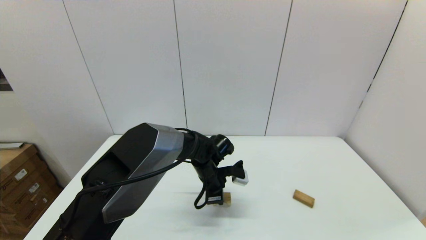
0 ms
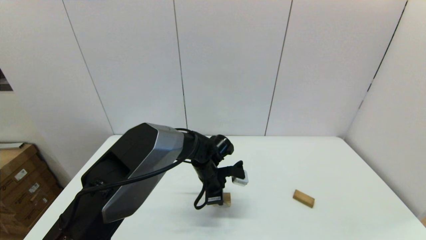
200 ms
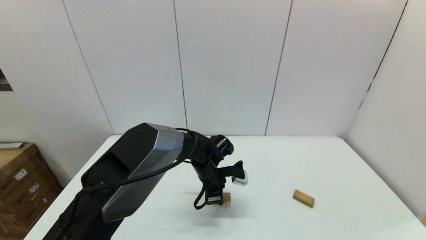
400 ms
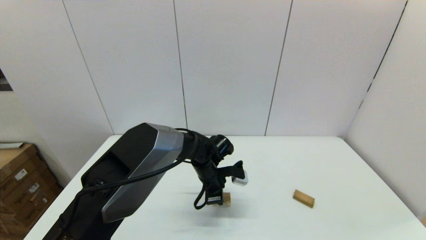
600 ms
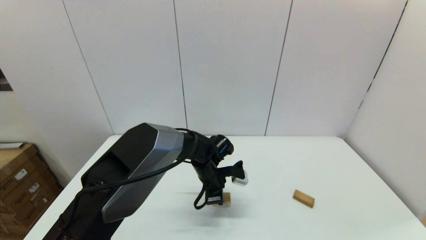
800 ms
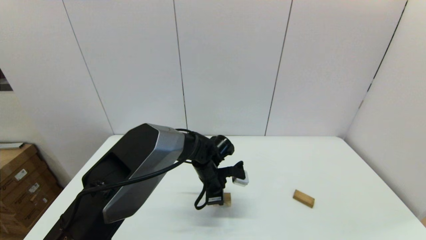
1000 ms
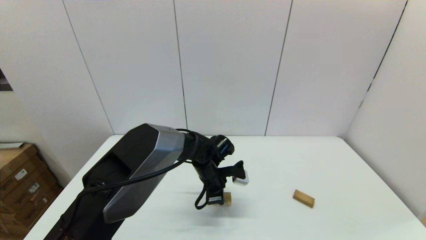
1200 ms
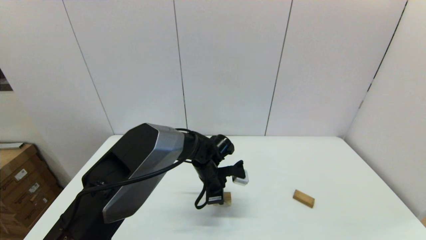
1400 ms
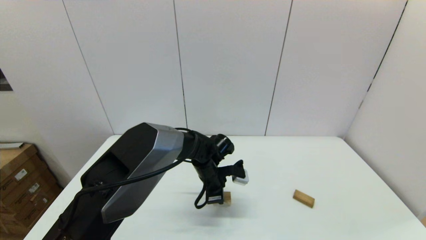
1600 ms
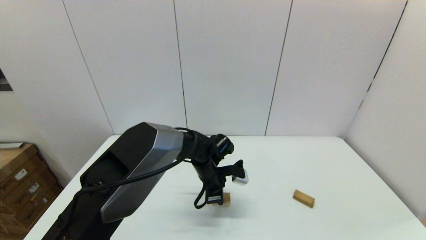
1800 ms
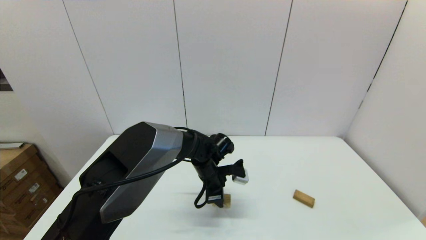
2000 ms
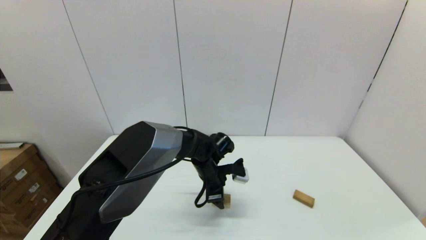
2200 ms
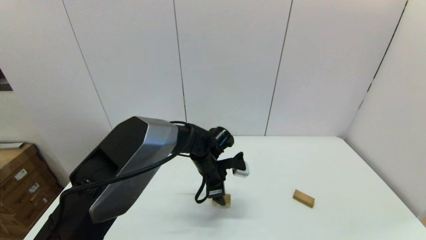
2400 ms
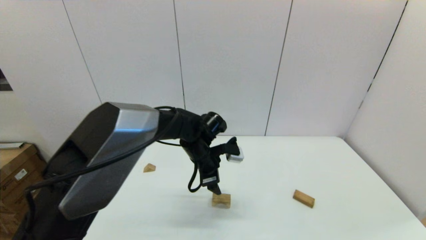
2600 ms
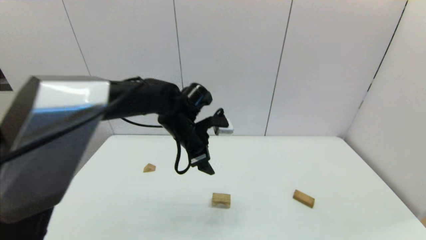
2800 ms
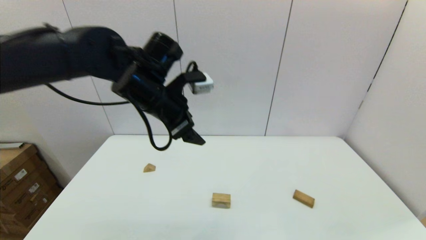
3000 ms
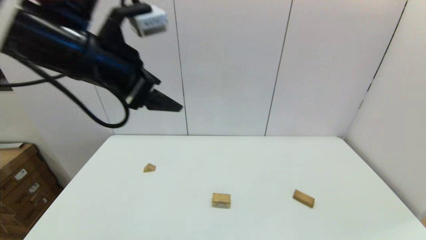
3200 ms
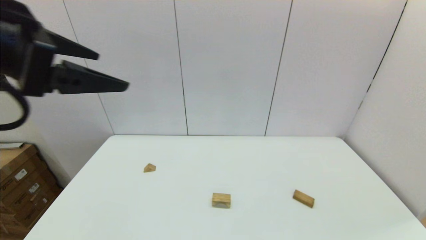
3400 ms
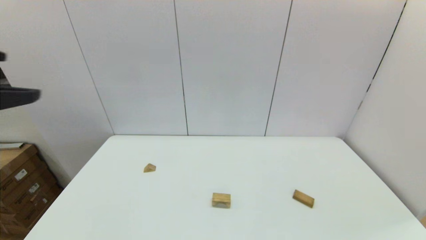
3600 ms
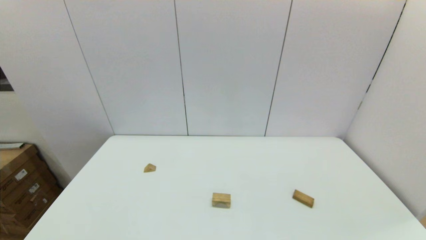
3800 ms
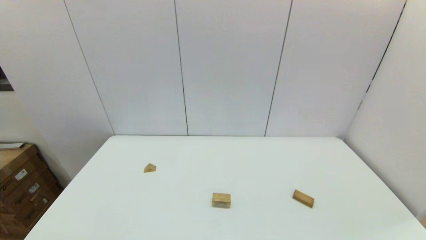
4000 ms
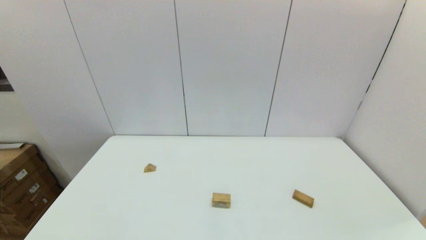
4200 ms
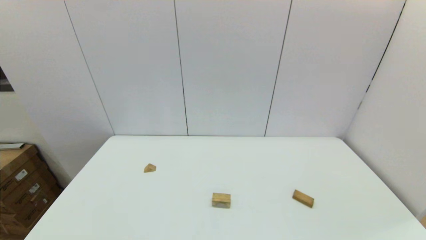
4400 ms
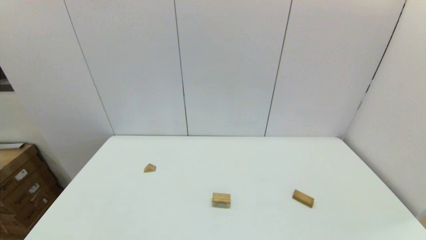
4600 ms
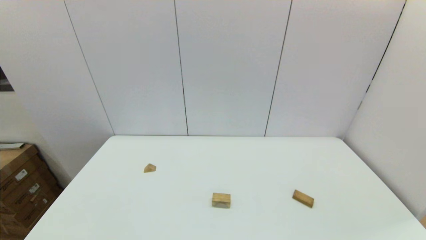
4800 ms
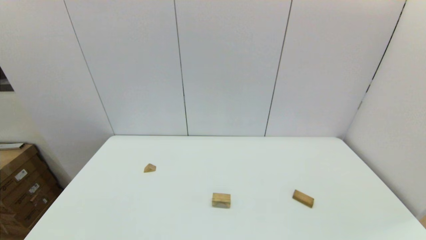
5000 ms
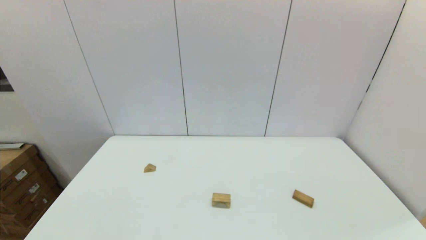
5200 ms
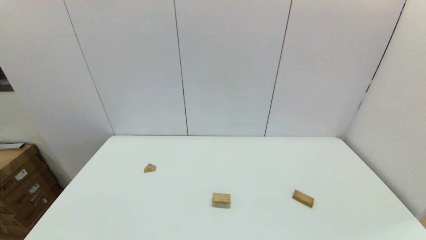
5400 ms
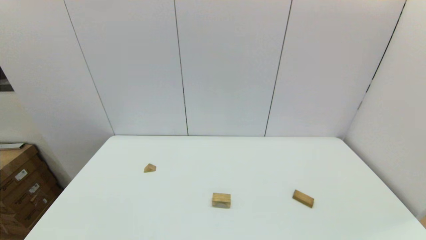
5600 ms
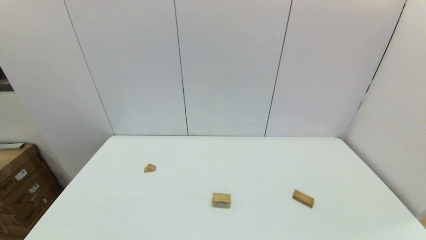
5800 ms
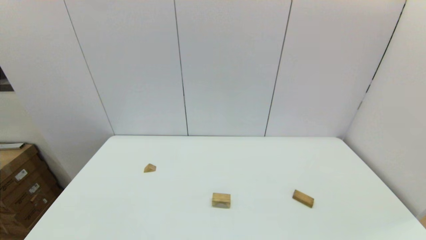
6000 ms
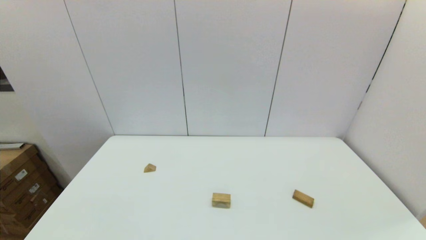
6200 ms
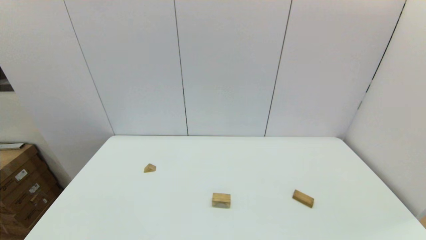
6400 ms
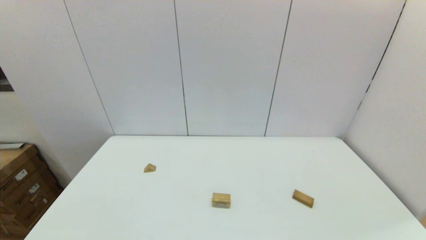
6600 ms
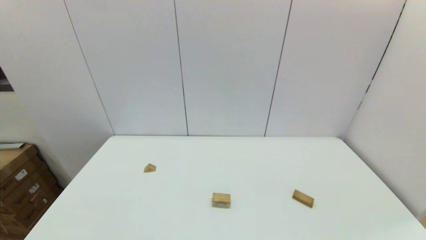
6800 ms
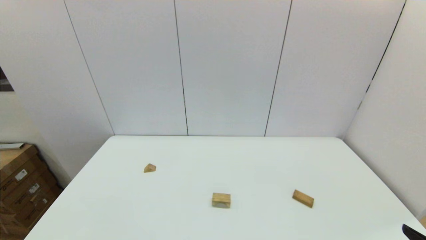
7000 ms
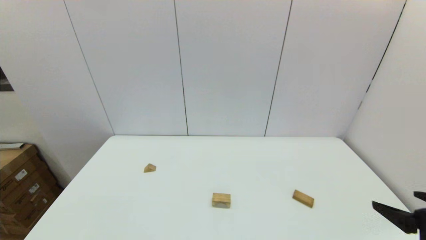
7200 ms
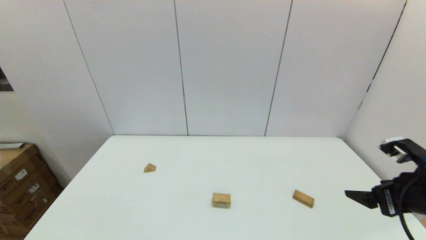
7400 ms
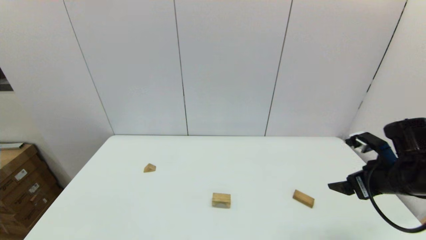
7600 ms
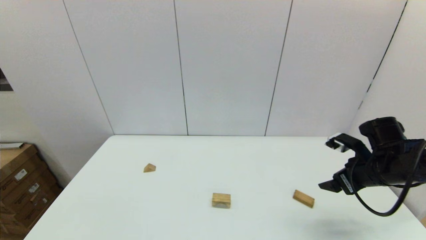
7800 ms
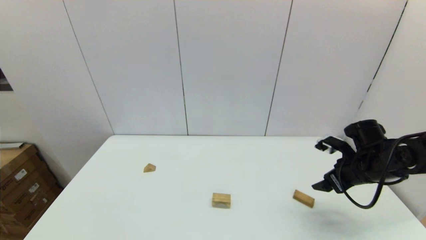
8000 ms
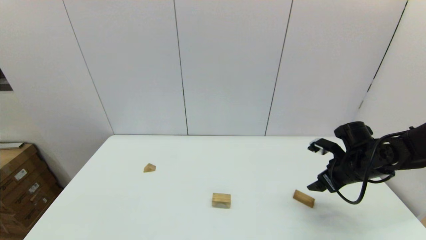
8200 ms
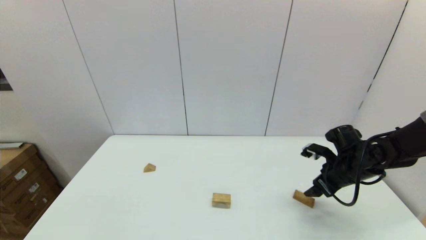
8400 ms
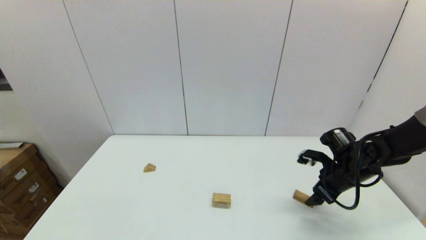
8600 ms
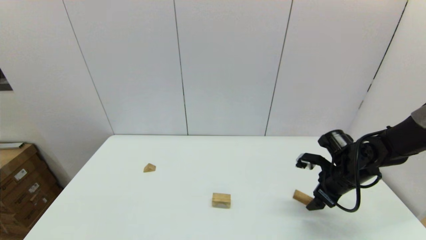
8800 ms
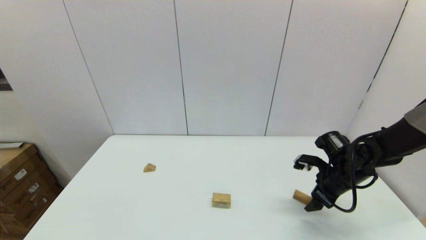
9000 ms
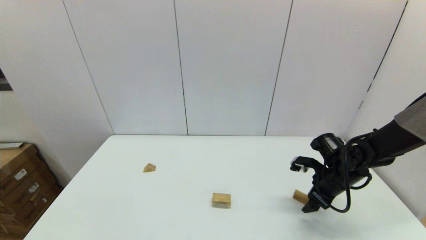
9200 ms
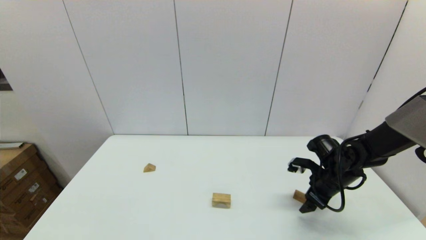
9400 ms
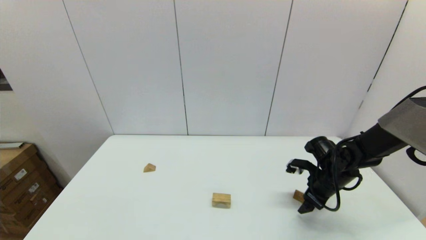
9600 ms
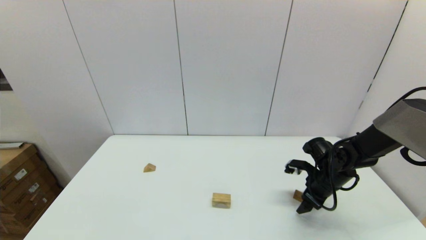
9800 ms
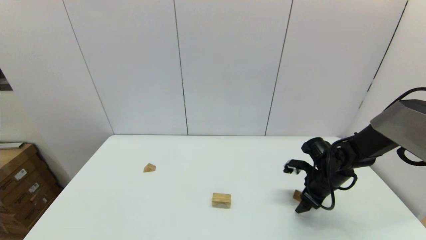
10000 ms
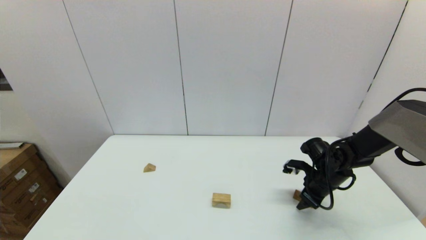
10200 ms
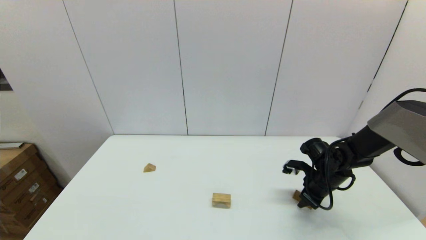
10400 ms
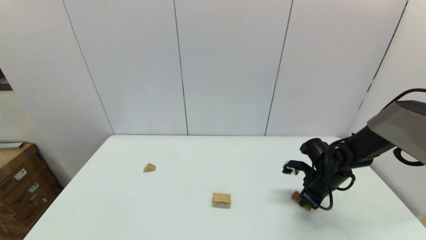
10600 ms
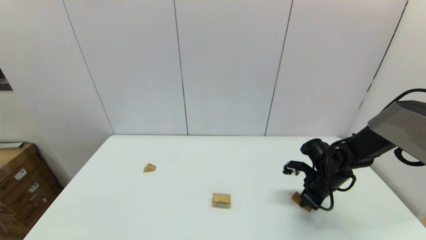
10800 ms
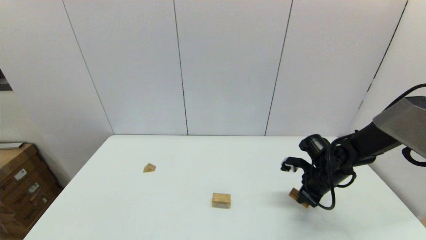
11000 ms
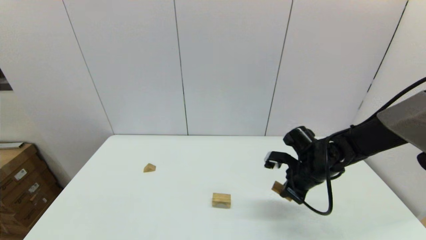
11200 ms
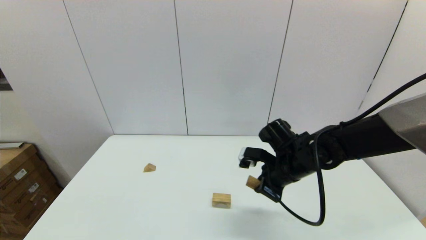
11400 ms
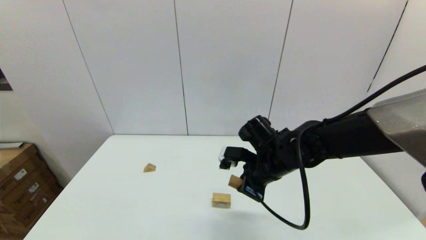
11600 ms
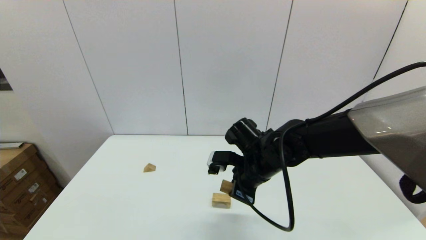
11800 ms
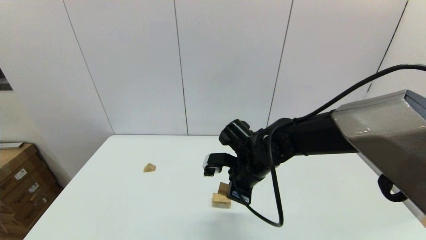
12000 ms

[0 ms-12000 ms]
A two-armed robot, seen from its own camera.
Task of the whole recording: place the arched building blocks in the center of the table, set up the rectangular building blocks, and then set up the triangular building blocks.
Step, 0 ms to 2000 ms: Place the arch-shaped block in the center of view with the left gripper.
Step, 2200 ms to 10400 ms: Grasp the box-shaped block with the right gripper.
0 ms to 1600 ms: Both grippers stay about where they are.
1600 ms to 3000 ms: The left gripper moves upward and to the left, roughly 30 cm, and opens.
3000 ms to 4400 ms: The left gripper heads backward and to the left, covering about 40 cm.
6000 ms to 7600 ms: The right gripper goes approximately 25 cm forward.
7600 ms to 9000 ms: The right gripper is displaced downward and forward by some 10 cm.
9000 ms to 10400 ms: The right gripper closes its fingers.
10400 ms to 12000 ms: The right gripper shifts roughly 25 cm to the left and upward.

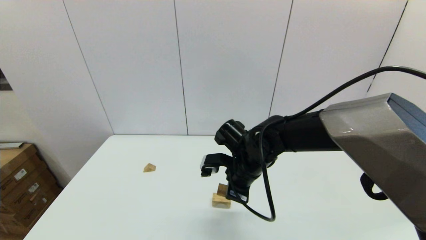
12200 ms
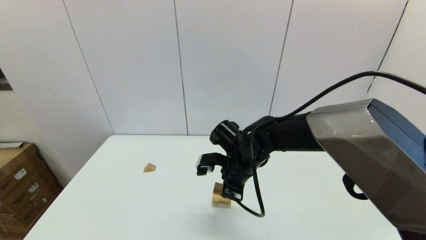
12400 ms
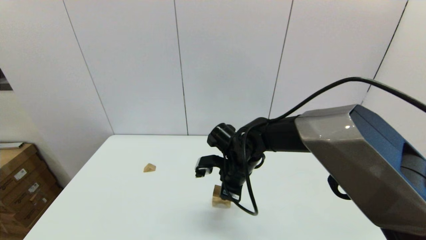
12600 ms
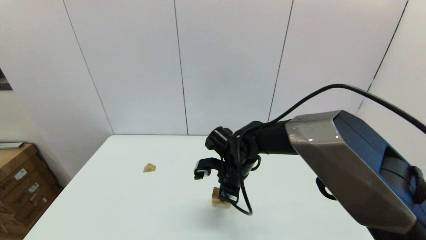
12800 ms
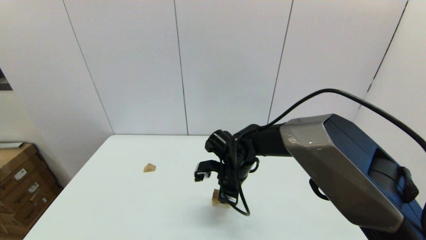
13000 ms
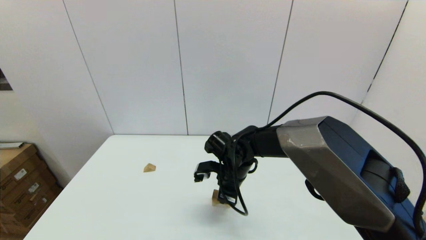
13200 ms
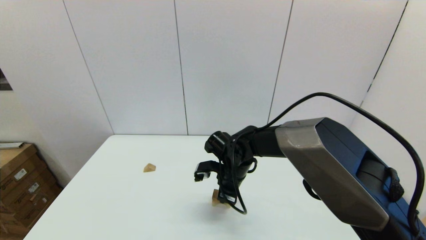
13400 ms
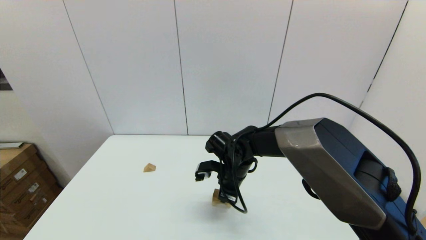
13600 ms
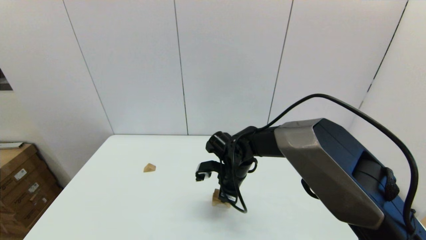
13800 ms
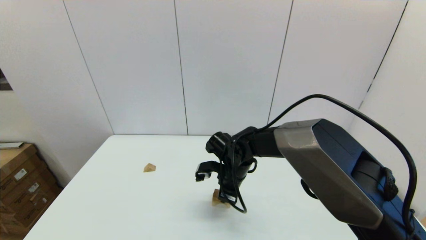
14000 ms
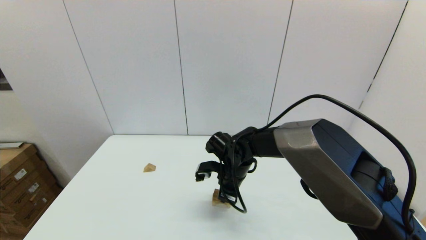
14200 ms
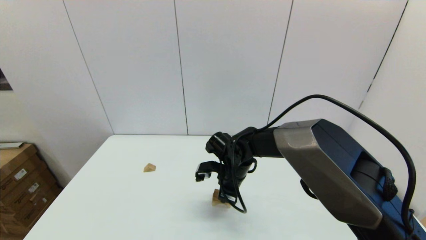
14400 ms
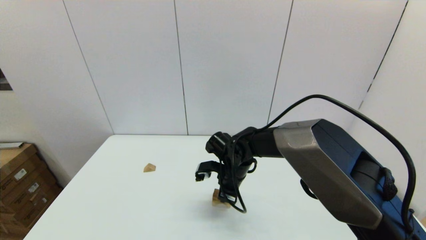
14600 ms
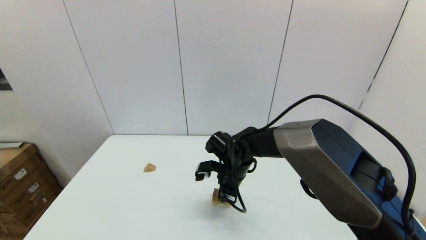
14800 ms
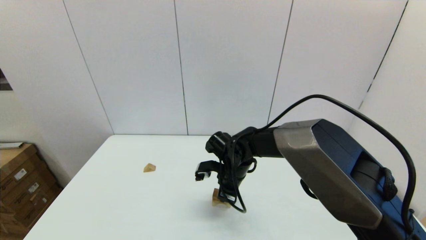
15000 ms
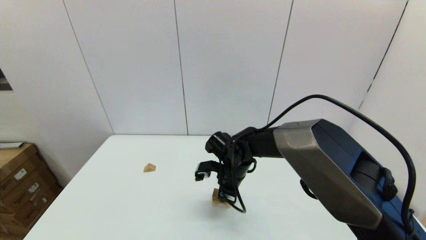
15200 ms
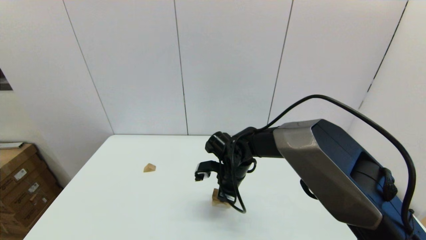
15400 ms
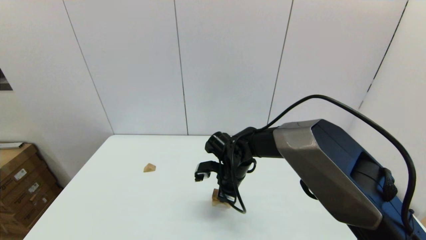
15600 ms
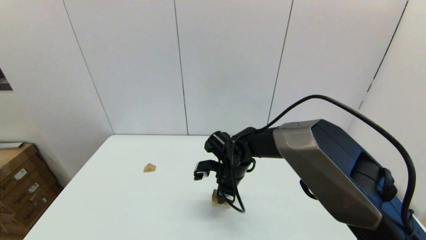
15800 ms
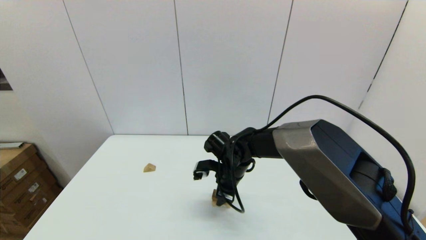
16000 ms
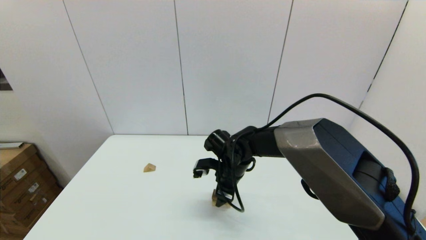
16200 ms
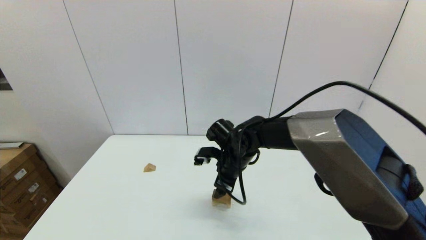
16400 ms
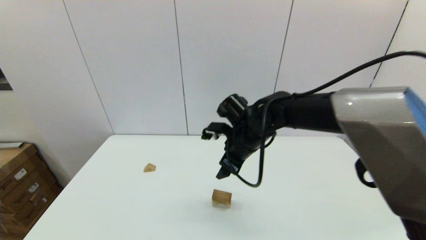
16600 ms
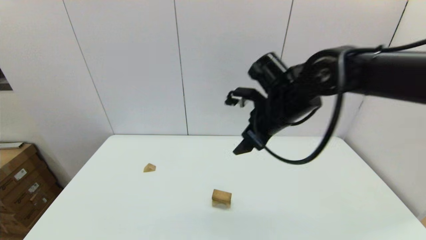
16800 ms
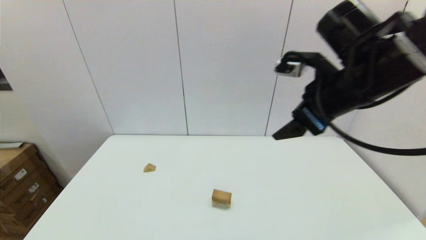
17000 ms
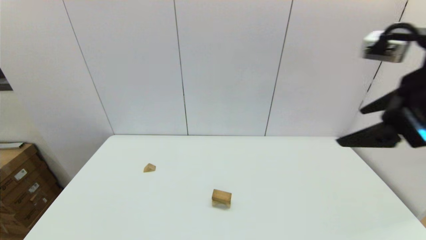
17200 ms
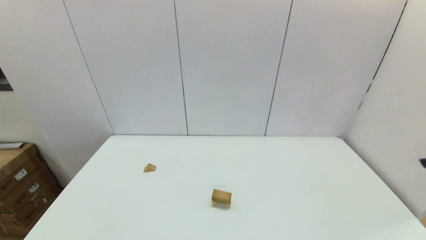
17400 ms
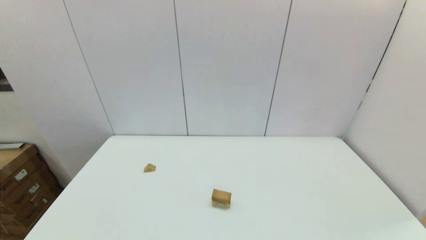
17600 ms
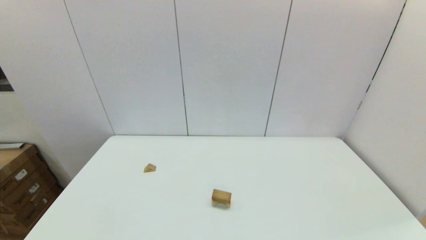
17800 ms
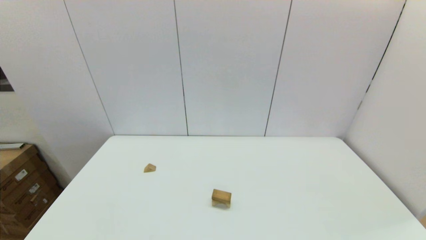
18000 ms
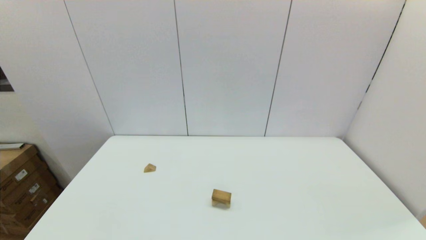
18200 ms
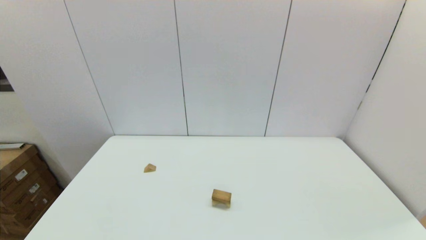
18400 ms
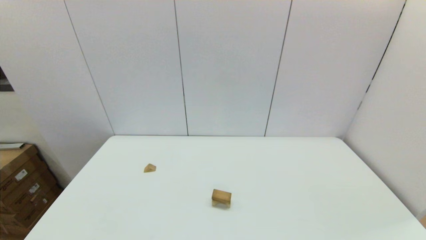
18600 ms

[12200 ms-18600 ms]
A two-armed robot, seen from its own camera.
Task of the whole recording: place the arched building blocks in the center of the table, set up the rectangular building blocks, and then set up the triangular building blocks.
Step, 12200 ms to 16000 ms: Place the box-shaped block onto the arch-shaped block with the right gripper.
12200 ms to 13800 ms: The right gripper shifts some 5 cm downward.
13800 ms to 15400 ms: Neither gripper changes place.
15400 ms to 17000 ms: The right gripper moves upward and to the right, about 30 cm, and opens.
17000 ms to 18600 ms: The right gripper heads backward, downward and to the right, covering approximately 40 cm.
